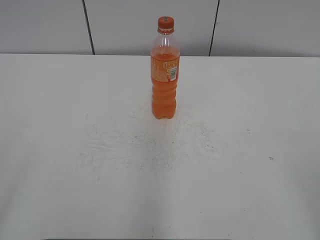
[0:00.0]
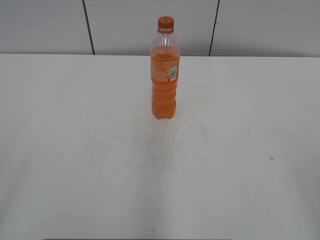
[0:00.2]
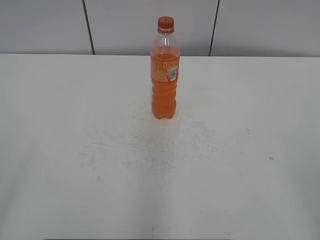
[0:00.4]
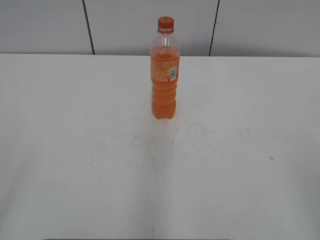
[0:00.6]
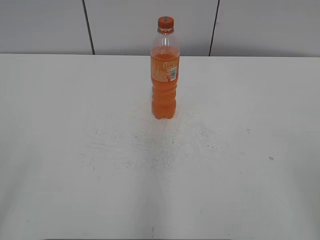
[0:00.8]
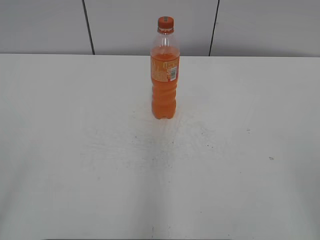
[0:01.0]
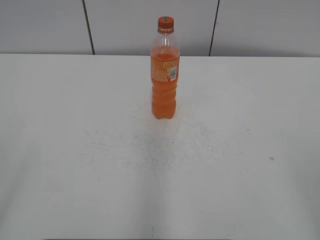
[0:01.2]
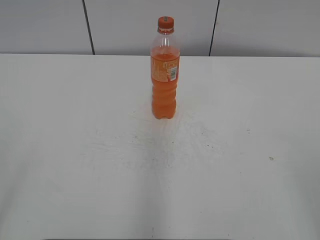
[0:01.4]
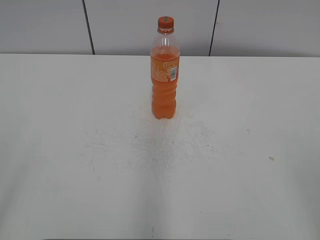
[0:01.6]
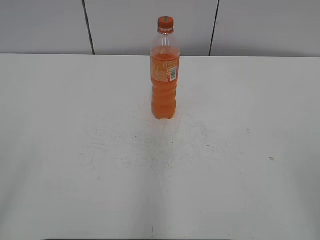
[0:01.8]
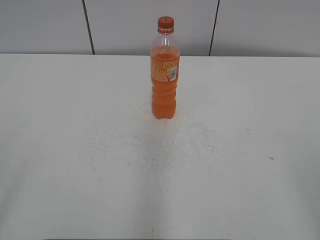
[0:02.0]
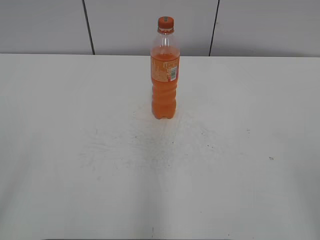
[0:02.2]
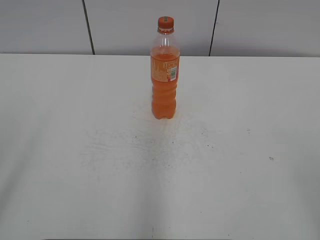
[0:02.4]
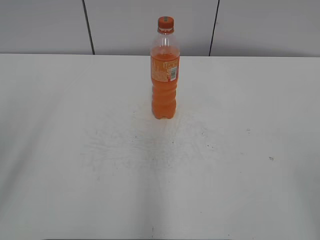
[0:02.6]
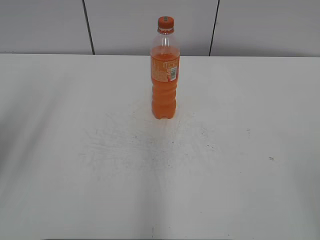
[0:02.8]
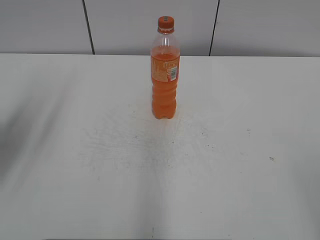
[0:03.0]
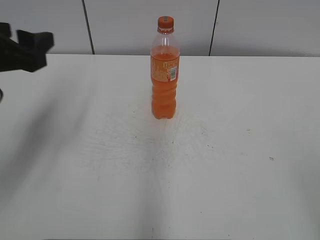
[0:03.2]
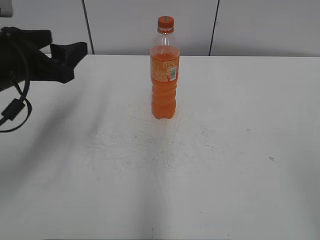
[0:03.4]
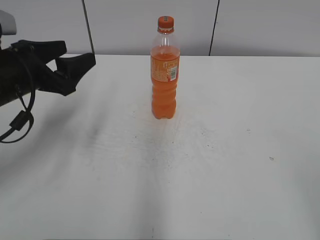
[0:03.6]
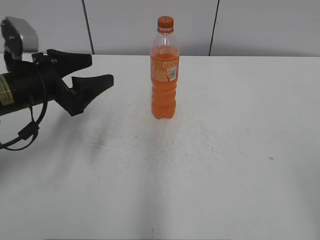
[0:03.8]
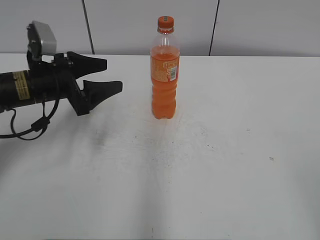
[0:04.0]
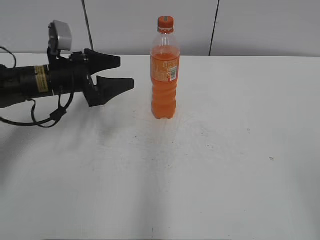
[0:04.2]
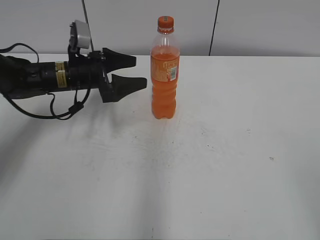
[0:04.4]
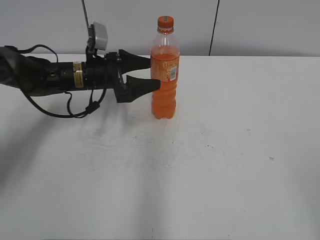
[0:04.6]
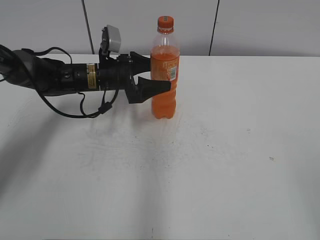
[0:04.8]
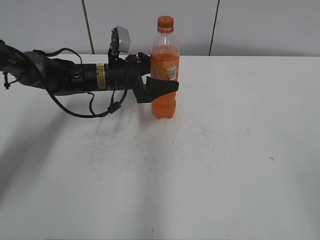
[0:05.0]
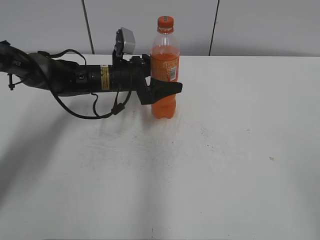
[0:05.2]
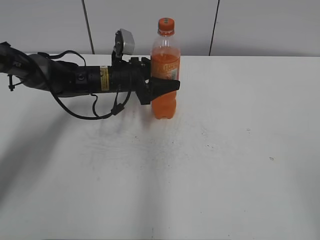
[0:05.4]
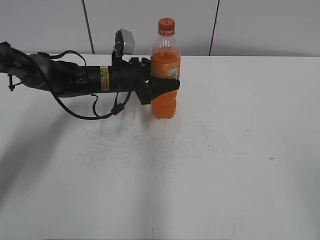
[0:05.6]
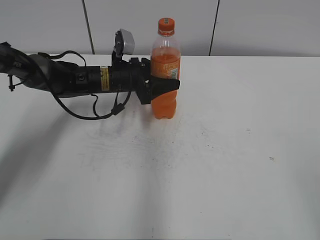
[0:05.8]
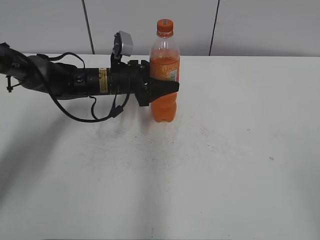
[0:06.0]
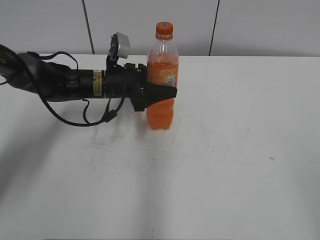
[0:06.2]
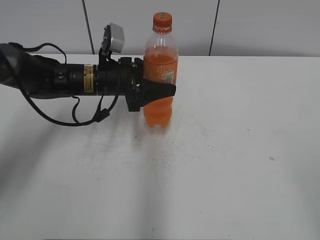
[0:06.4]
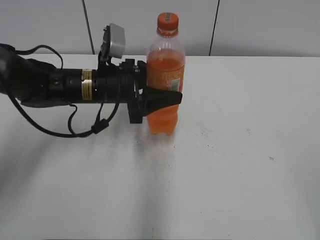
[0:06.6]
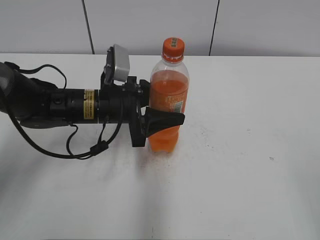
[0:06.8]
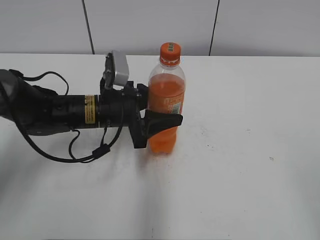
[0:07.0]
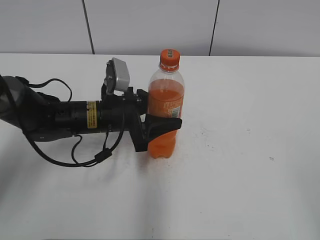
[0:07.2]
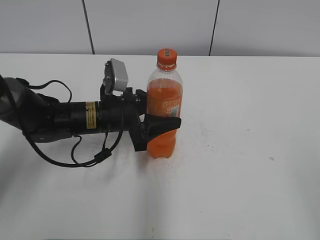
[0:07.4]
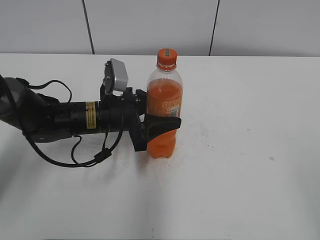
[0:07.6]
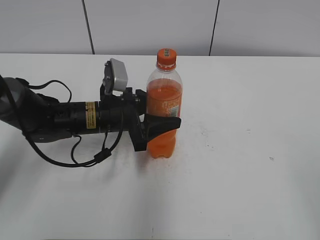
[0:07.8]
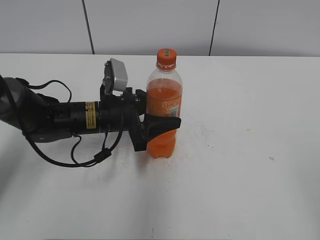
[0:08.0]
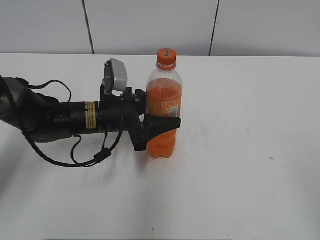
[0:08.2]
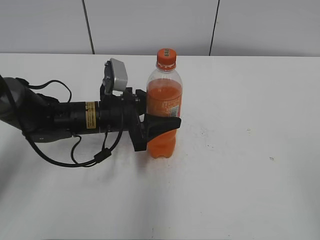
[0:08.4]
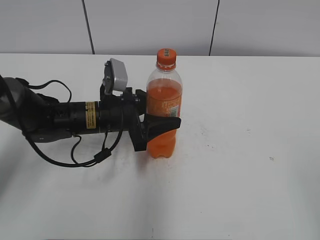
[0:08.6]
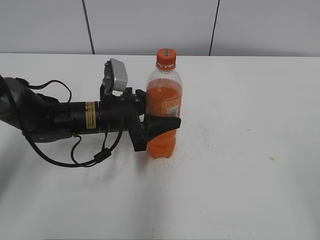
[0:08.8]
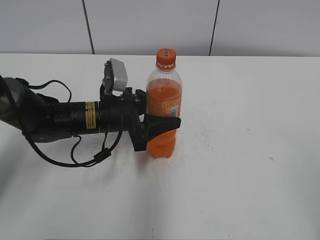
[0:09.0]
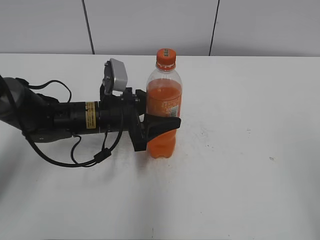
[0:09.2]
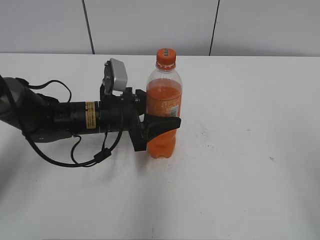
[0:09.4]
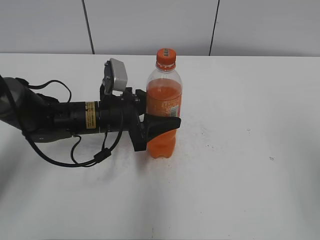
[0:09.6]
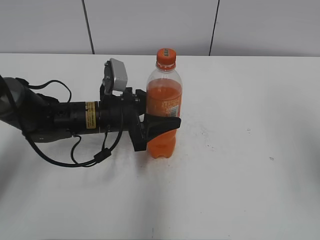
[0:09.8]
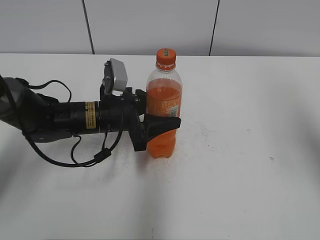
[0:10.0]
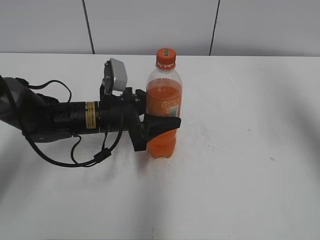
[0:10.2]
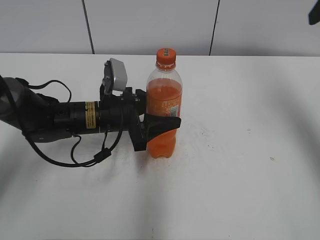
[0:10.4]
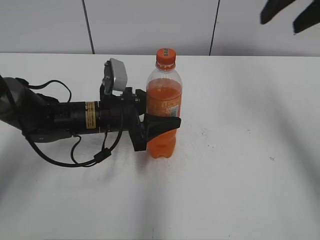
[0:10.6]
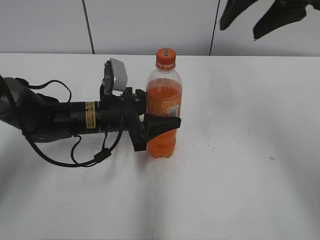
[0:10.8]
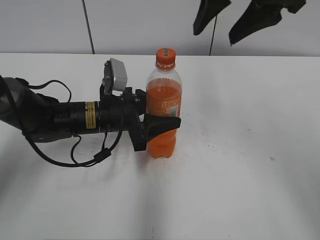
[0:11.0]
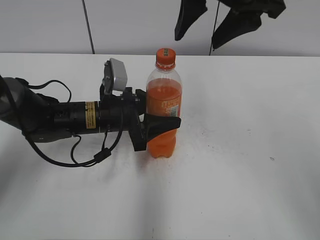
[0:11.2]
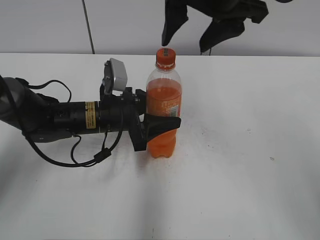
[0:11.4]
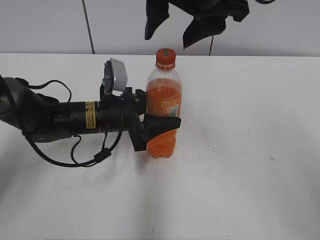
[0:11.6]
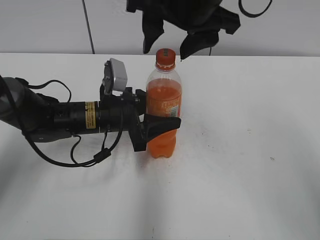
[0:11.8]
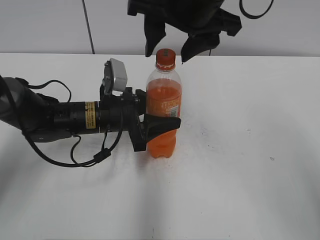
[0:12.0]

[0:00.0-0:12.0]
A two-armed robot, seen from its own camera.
Step, 0:00.0 to 0:05.6: Grab the Mirinda with the left hand.
Step, 0:05.8 to 0:07.4: Move the Mirinda from left to right.
0:01.6 to 0:03.0: The left gripper moves forward, approximately 20 cm.
0:03.0 to 0:04.4: The left gripper goes roughly 30 cm forward, downward and to the right, and opens its fingers.
0:04.4 to 0:06.0: The left gripper goes some 10 cm to the right, and closes up.
0:06.0 to 0:07.6: The left gripper shifts roughly 10 cm backward.
0:09.0 to 0:10.4: The right gripper heads forward, covering roughly 30 cm.
0:10.4 to 0:12.0: The right gripper goes roughly 25 cm to the left.

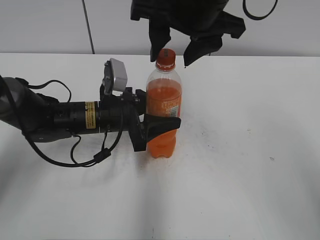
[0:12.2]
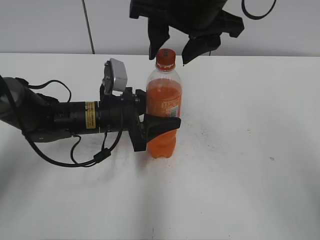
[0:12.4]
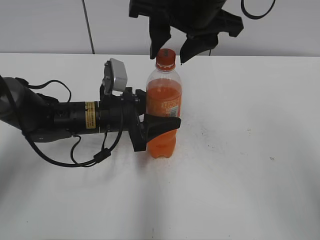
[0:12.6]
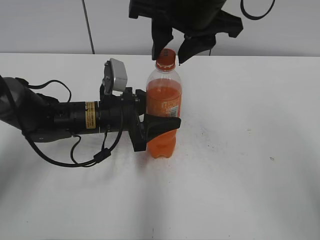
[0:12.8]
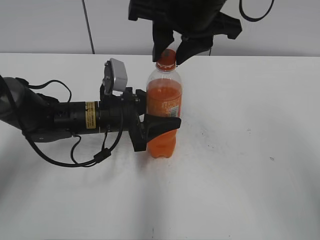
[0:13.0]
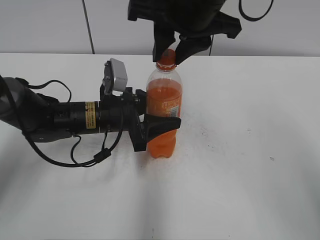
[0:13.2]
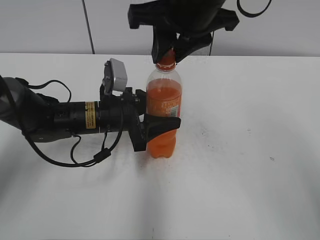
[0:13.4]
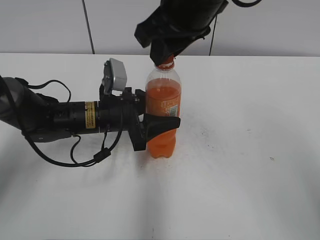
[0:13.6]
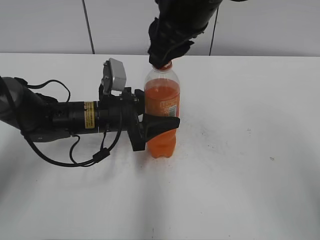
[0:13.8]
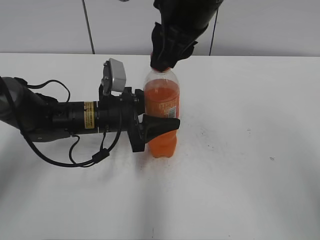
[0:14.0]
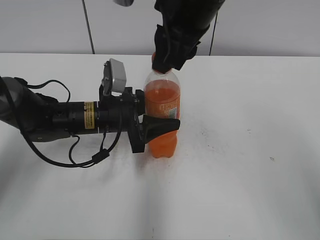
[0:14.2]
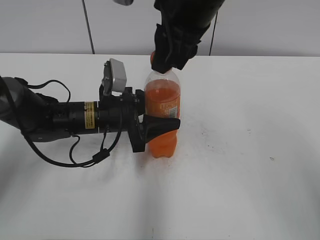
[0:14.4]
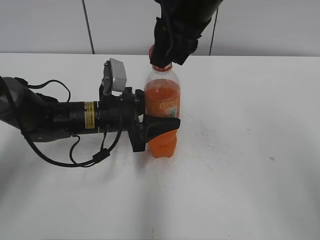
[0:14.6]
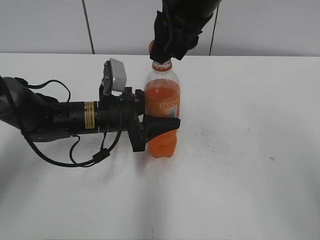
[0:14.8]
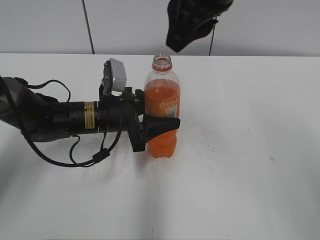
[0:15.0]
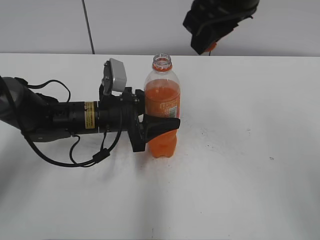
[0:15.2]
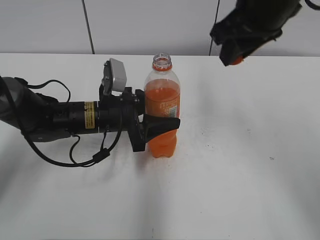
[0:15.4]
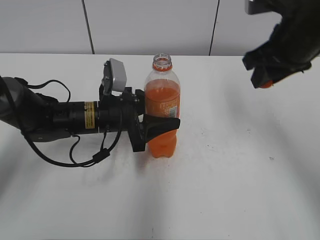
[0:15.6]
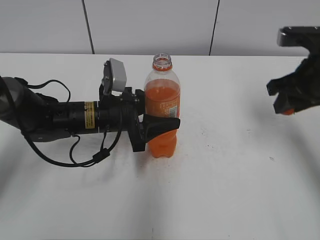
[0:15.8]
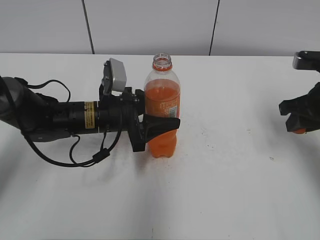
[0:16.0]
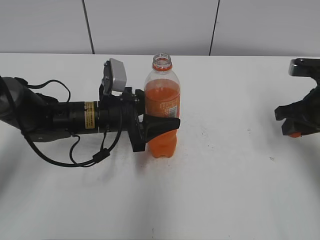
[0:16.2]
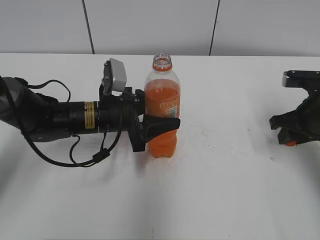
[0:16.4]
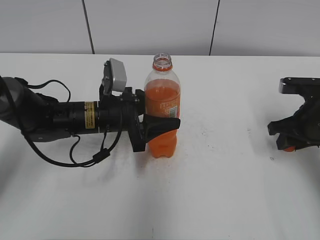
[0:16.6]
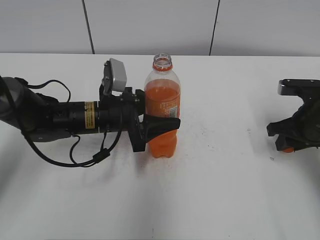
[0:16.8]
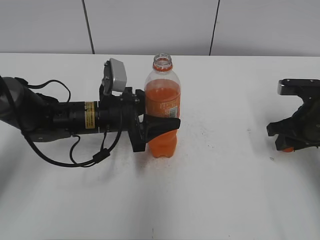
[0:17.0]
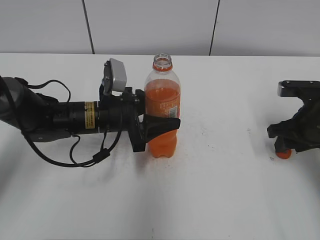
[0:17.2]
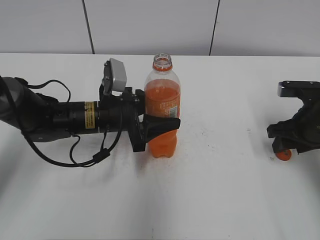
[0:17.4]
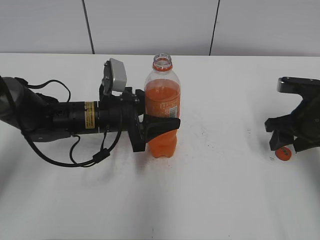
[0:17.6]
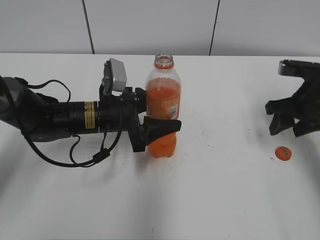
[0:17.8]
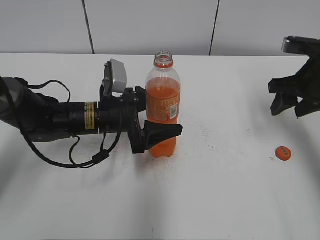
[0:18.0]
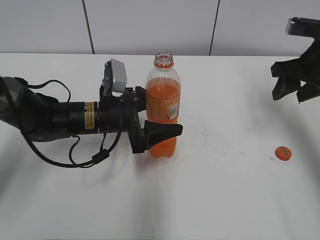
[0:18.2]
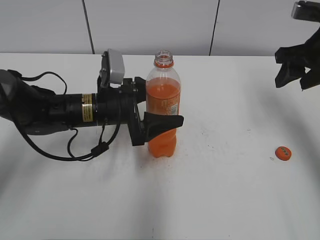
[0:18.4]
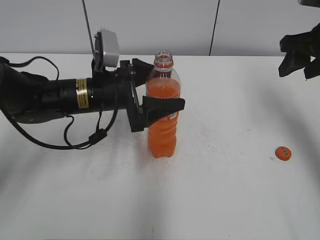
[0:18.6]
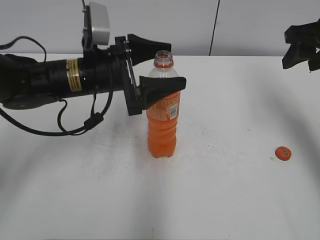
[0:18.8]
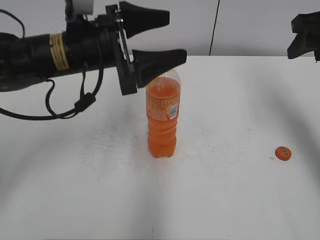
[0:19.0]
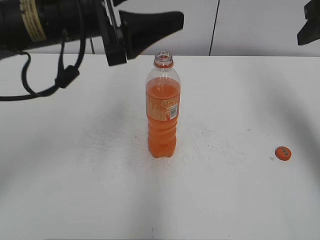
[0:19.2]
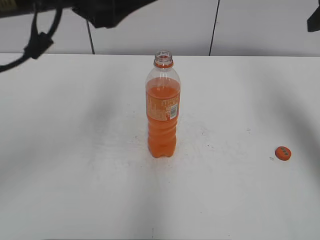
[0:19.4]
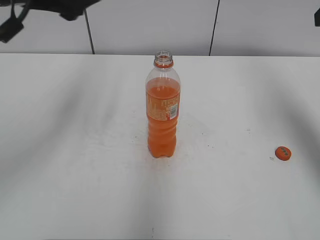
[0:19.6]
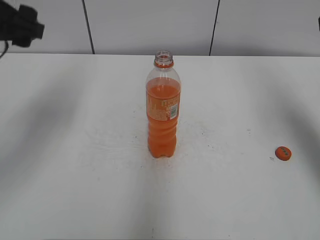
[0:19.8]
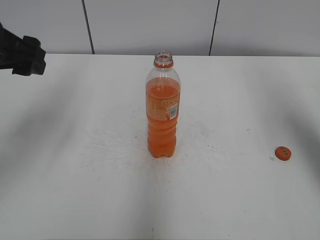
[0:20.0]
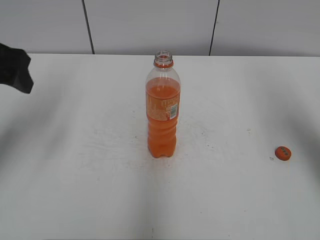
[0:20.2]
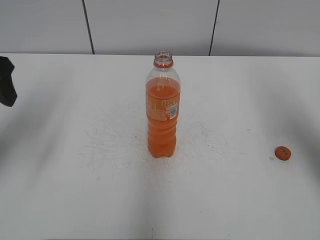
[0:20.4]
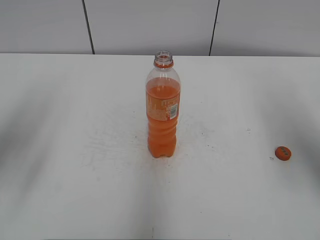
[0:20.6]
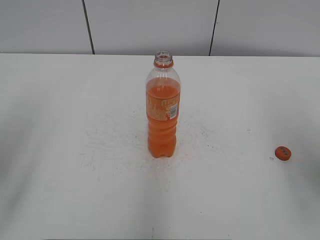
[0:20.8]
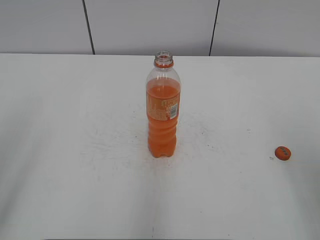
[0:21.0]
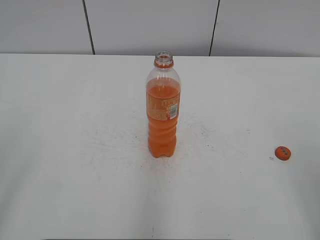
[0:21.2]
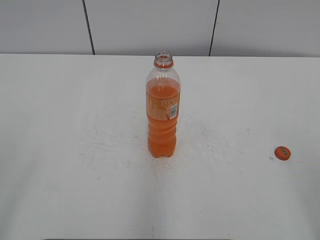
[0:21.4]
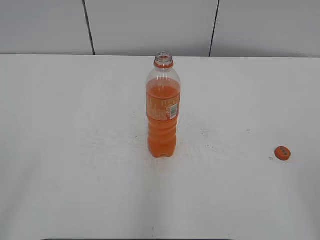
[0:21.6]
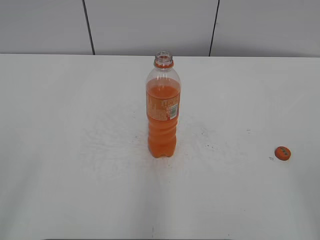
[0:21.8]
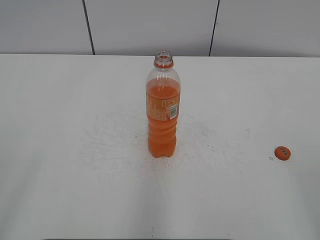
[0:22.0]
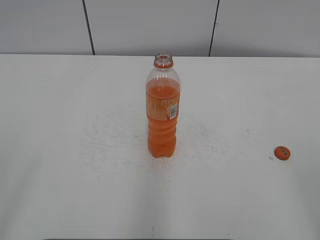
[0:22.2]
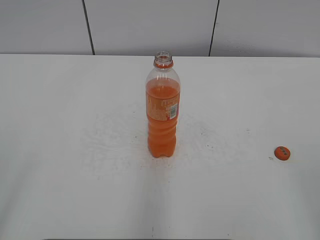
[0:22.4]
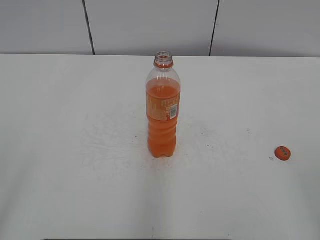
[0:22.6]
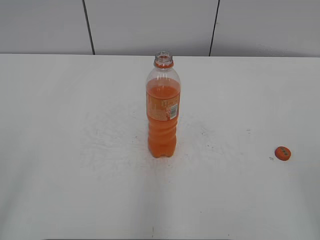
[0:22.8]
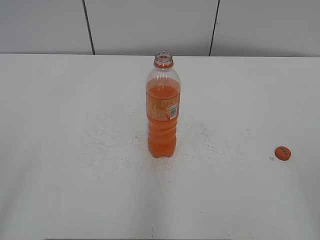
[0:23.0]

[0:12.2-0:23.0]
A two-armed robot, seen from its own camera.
Step, 0:14.8 to 0:17.4: Place the bottle cap on the right.
0:12.2 to 0:13.8: The right gripper closes its fingers.
0:13.8 to 0:15.2: The right gripper ends up approximately 5 cm from where it was.
0:15.2 to 0:16.8: The right gripper travels downward and to the right by roughly 30 cm.
0:16.8 to 0:18.4: The left gripper opens up, while the right gripper shifts about 10 cm upward, and opens its fingers.
0:18.4 to 0:20.0: The right gripper is displaced upward and backward by about 15 cm, while the left gripper heads upward and to the left, covering approximately 25 cm.
0:20.0 to 0:21.4: The two grippers go approximately 25 cm backward.
